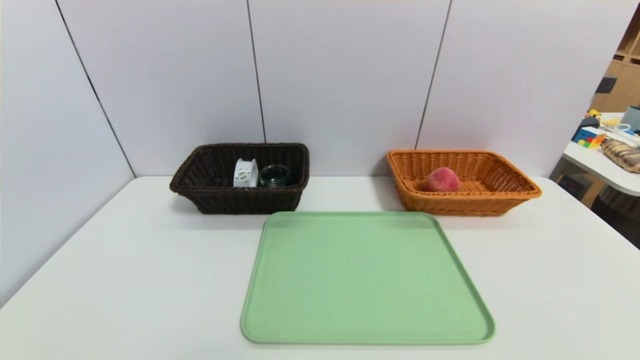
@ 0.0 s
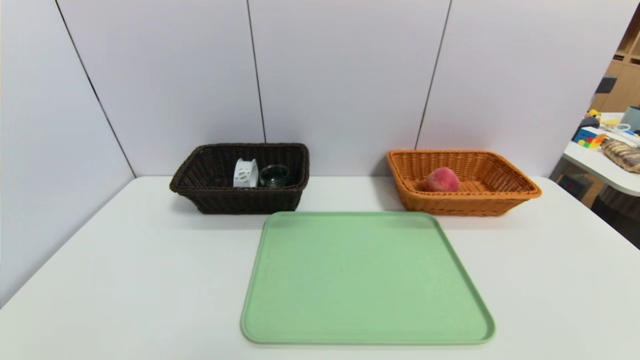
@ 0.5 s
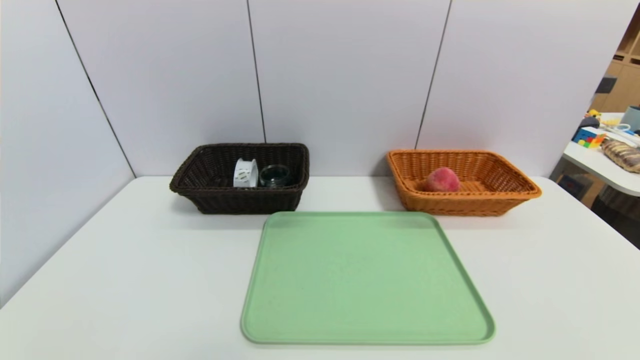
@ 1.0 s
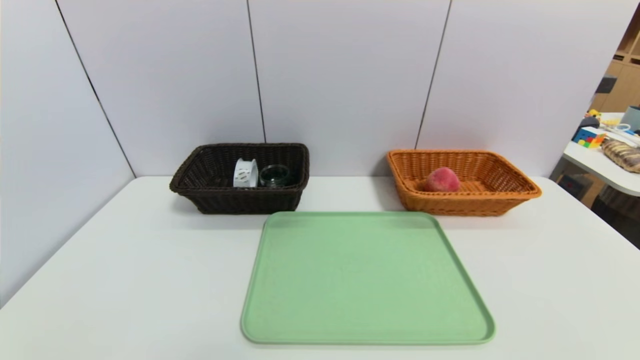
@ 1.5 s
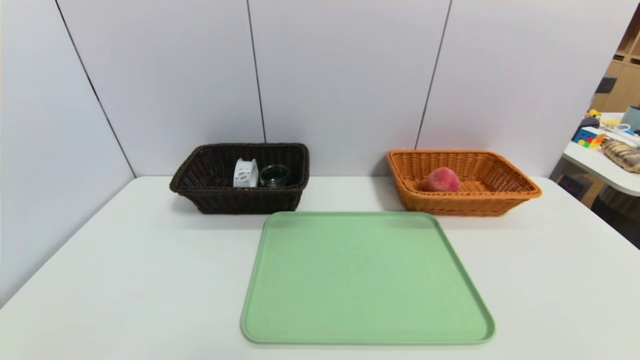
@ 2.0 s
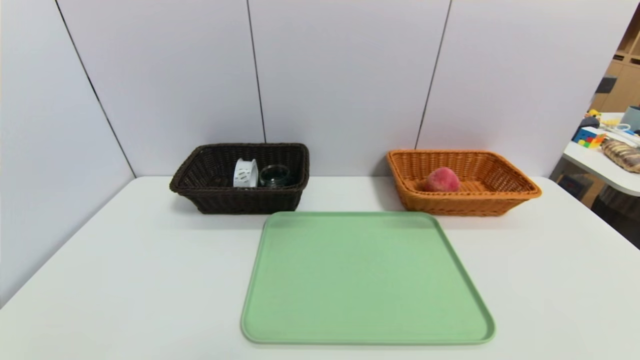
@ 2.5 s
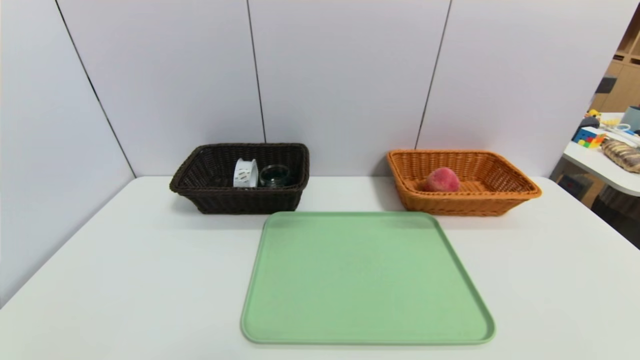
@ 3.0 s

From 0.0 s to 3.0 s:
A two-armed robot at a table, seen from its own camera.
Task of the whole recording: place the food in the right basket with the right gripper, and place the non food items in the left basket with the left gripper.
From 1.5 s to 3.0 s: Both grippers stay about where they are.
